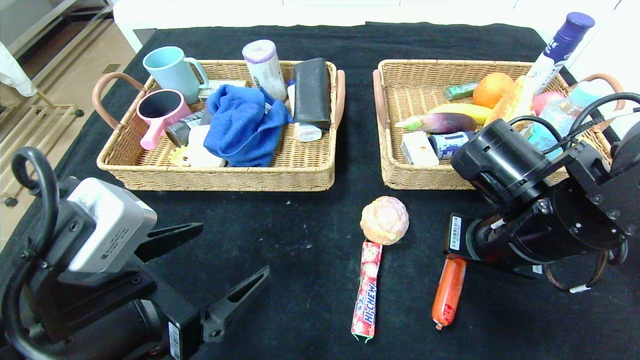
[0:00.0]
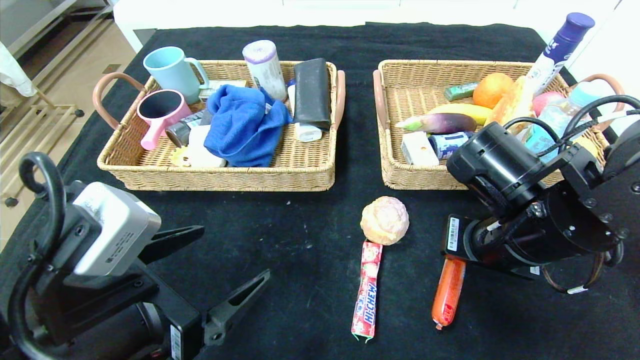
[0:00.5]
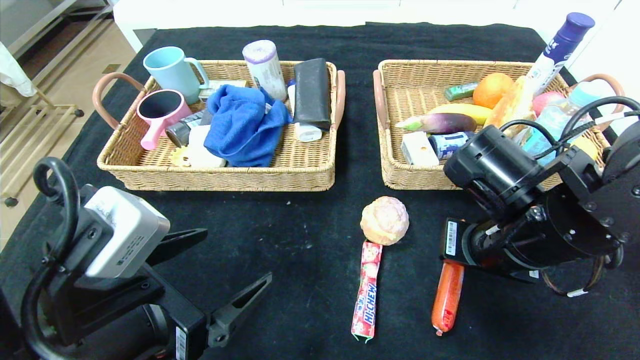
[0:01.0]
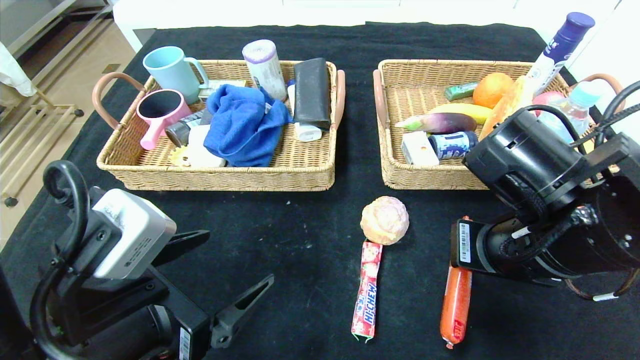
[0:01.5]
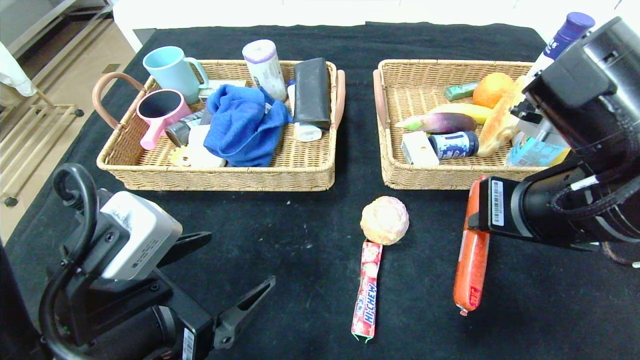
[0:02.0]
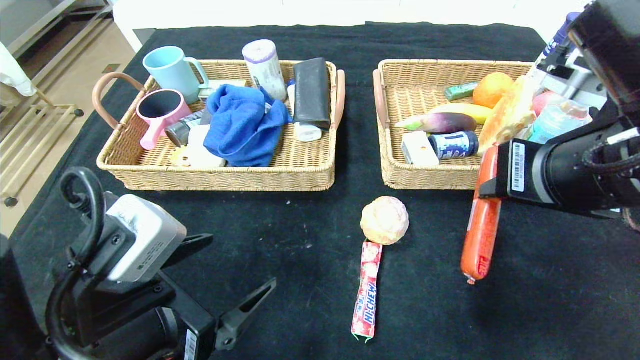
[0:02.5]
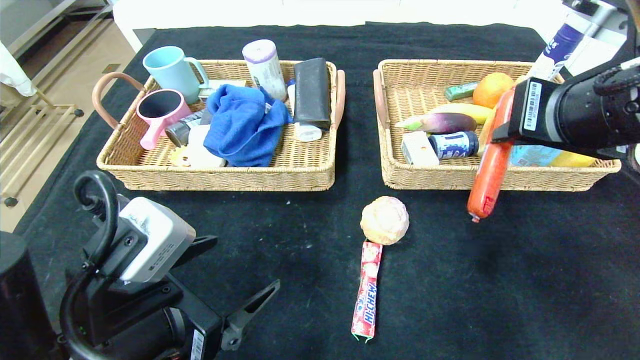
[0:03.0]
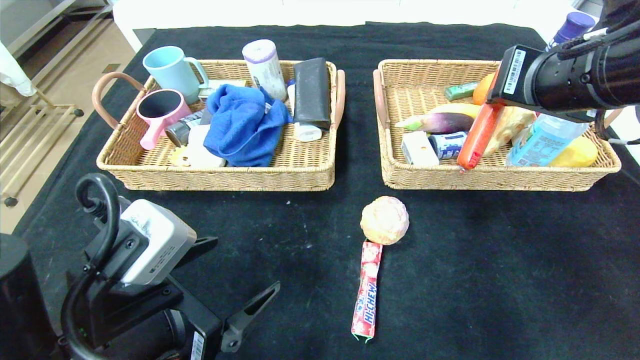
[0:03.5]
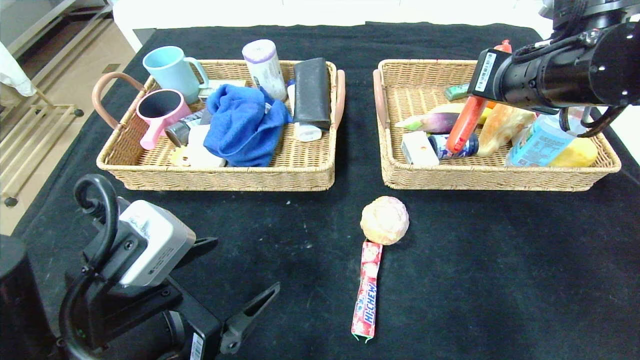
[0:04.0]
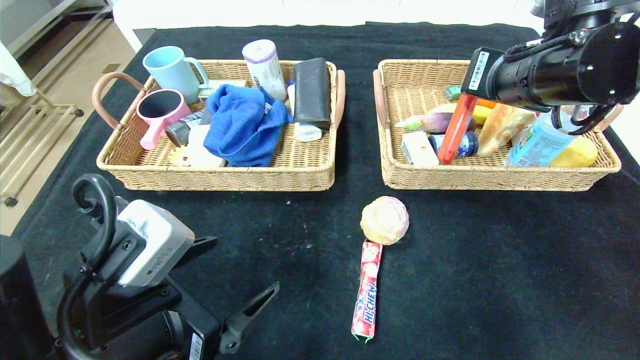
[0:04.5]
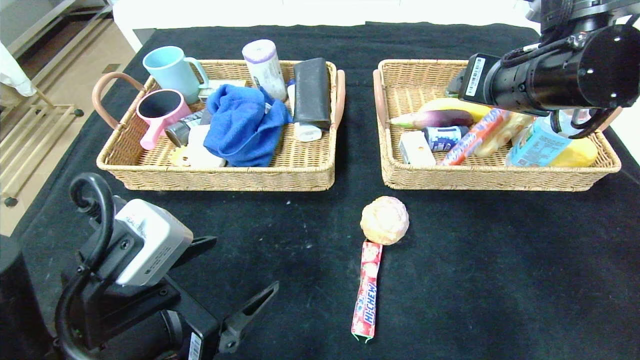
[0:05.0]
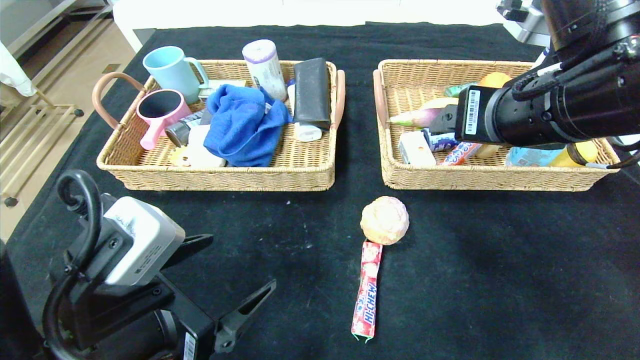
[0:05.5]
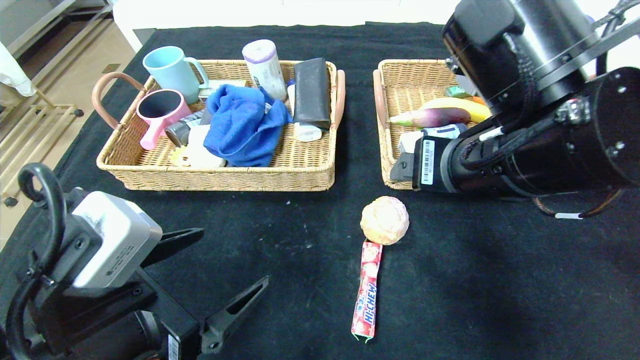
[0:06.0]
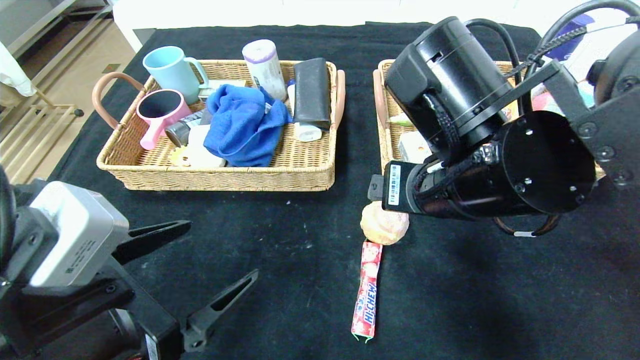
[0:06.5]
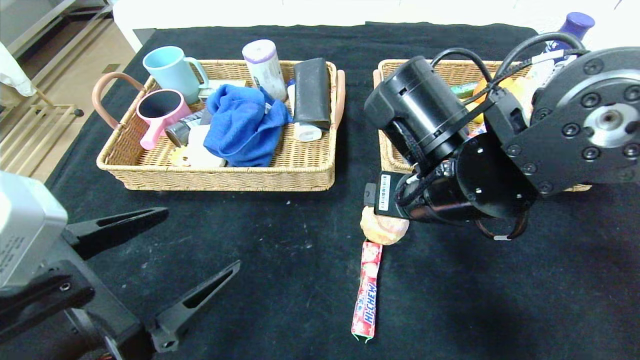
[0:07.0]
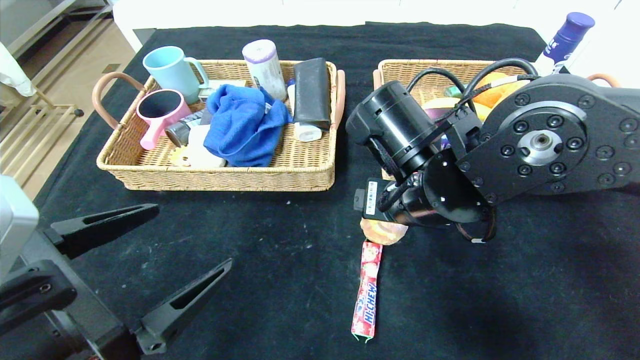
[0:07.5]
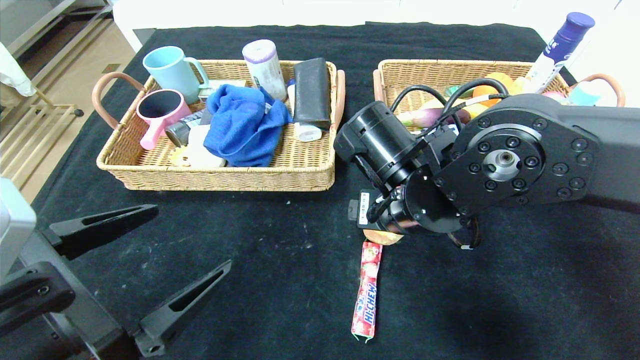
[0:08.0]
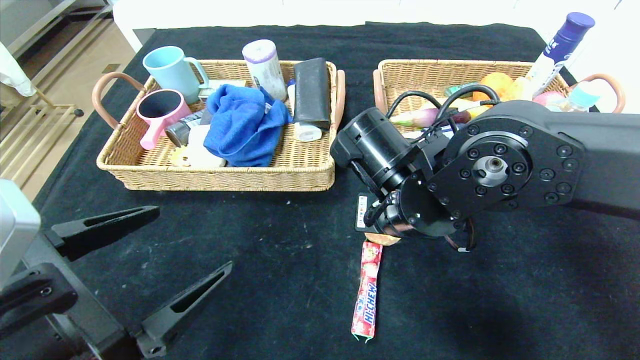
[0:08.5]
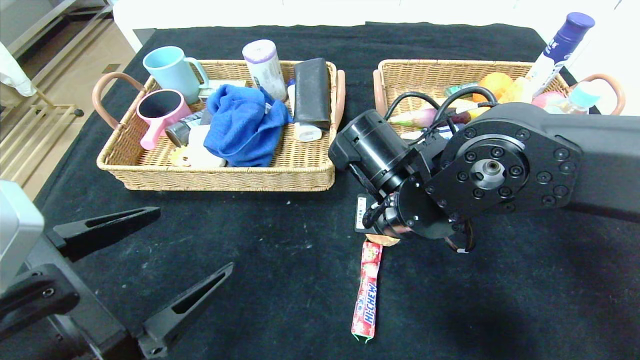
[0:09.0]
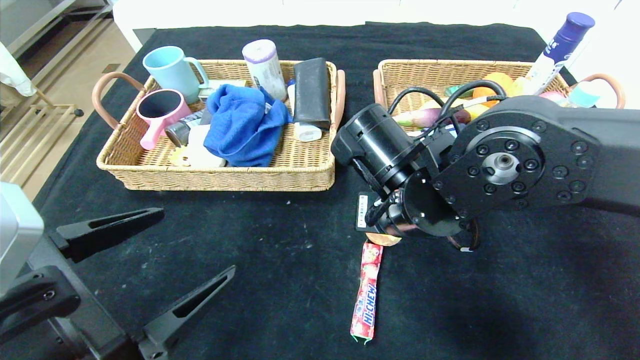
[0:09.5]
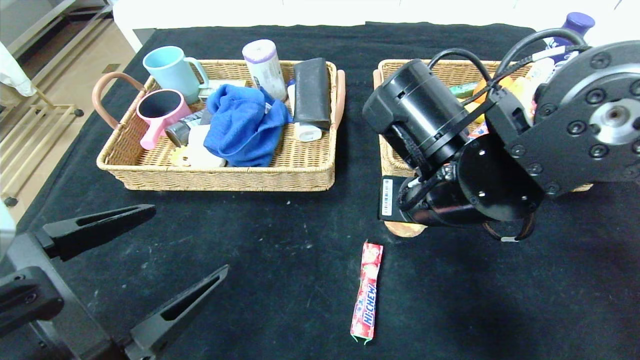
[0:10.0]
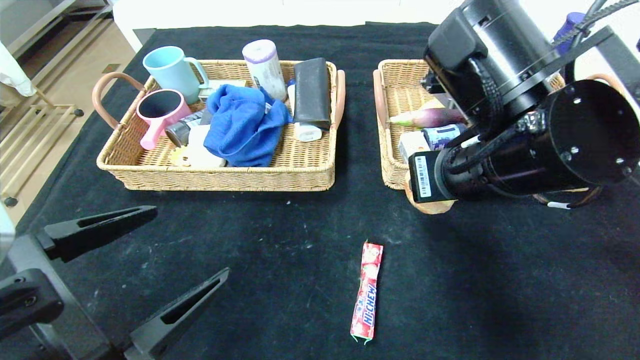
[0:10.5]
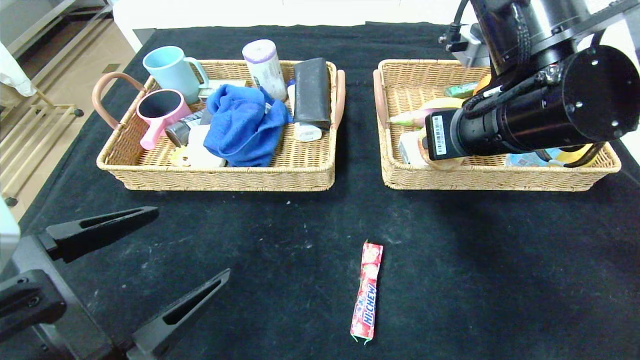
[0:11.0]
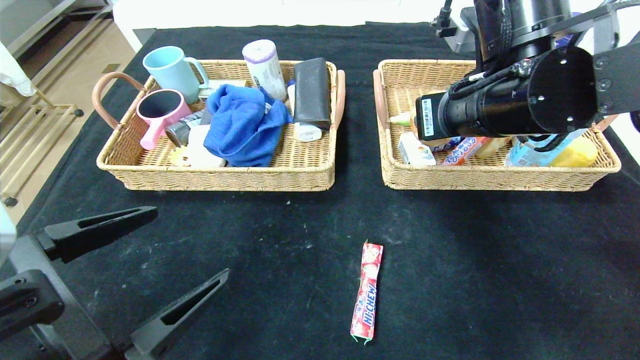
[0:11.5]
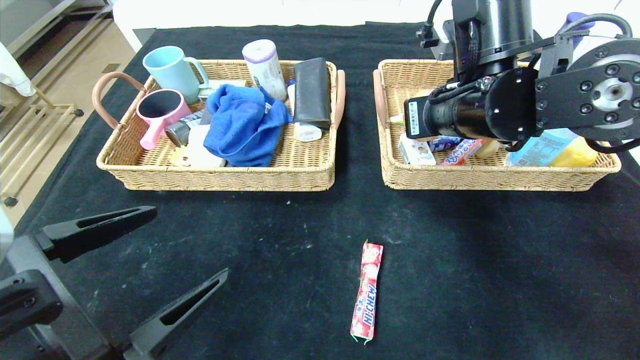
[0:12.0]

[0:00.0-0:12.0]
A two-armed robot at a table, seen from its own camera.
Step, 0:00.0 to 0:05.5: Pick up the sausage and put it in the right basket.
0:00.0 to 0:02.0: The right gripper is displaced upward by roughly 5 cm.
0:02.0 to 0:04.0: The right gripper travels forward and upward by some 10 cm.
0:04.0 to 0:06.0: The right gripper moves backward and to the left, approximately 10 cm, and opens up.
0:06.0 to 0:08.0: The right gripper travels downward and forward by roughly 10 cm.
0:08.0 to 0:10.0: The right gripper changes place by approximately 5 cm, and closes its fingers.
0:10.0 to 0:12.0: The right gripper travels forward by some 10 cm.

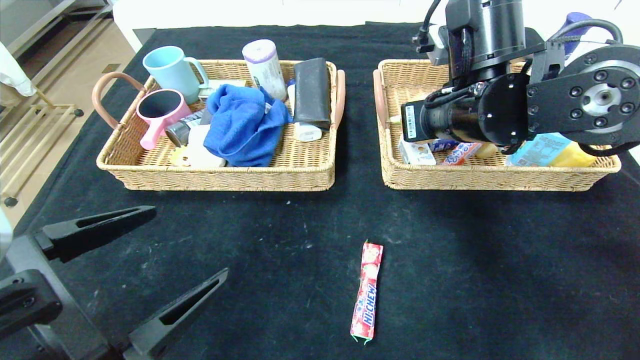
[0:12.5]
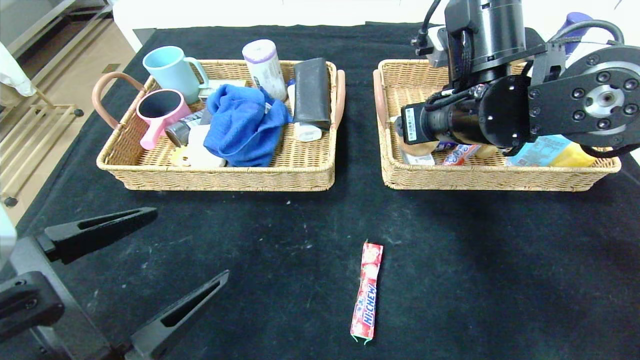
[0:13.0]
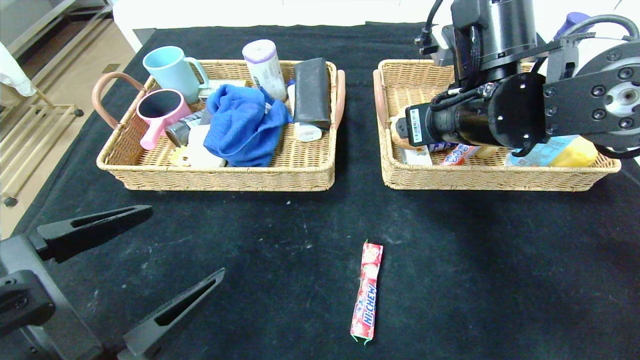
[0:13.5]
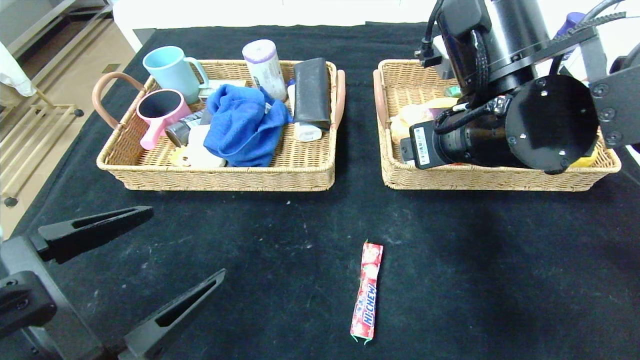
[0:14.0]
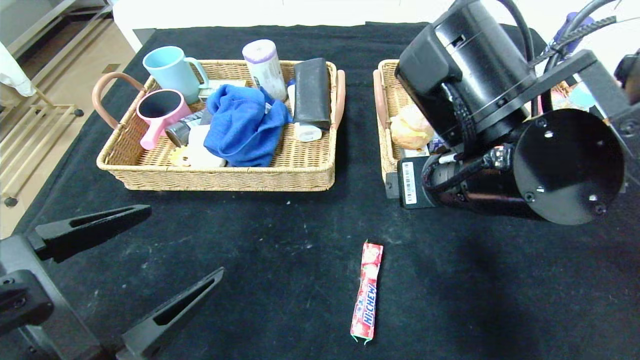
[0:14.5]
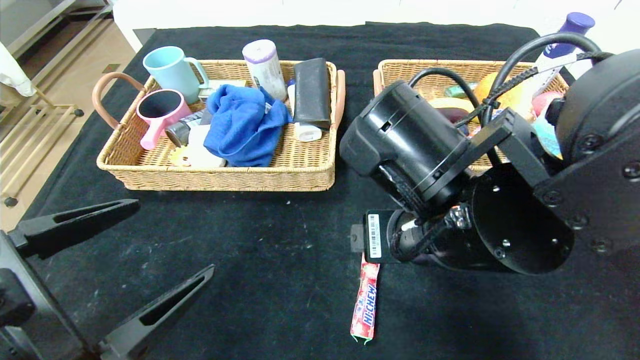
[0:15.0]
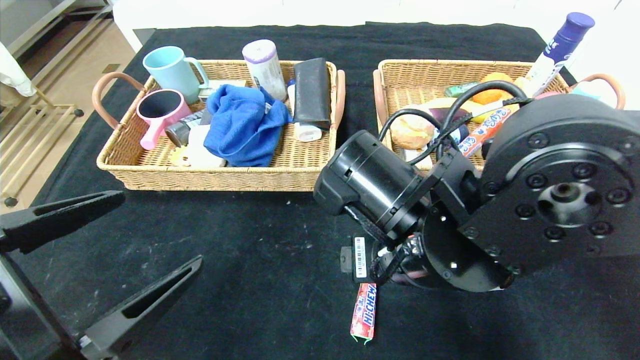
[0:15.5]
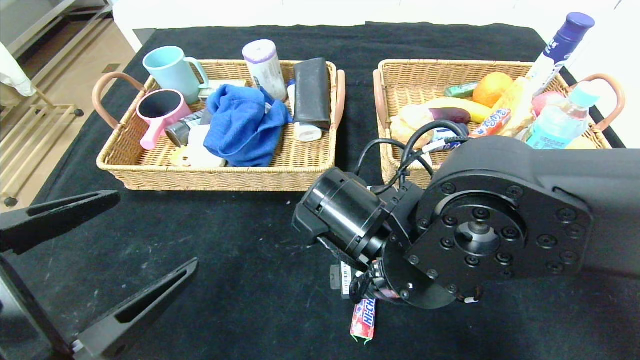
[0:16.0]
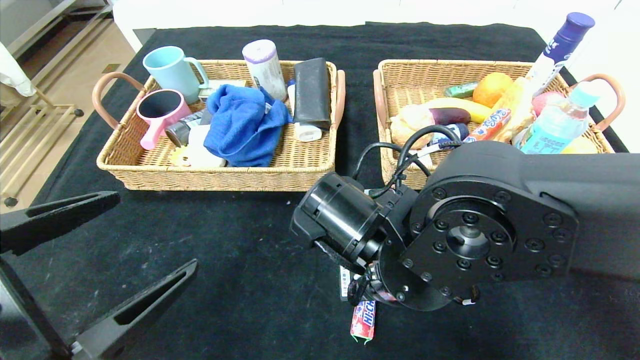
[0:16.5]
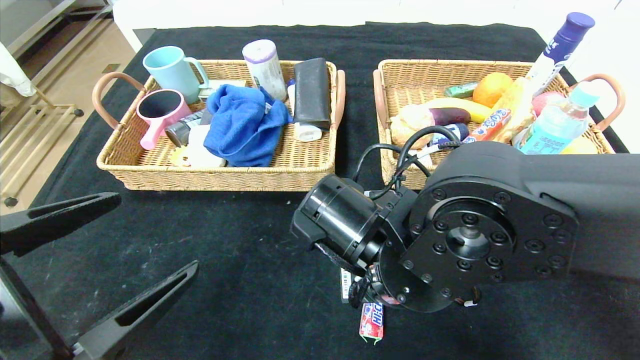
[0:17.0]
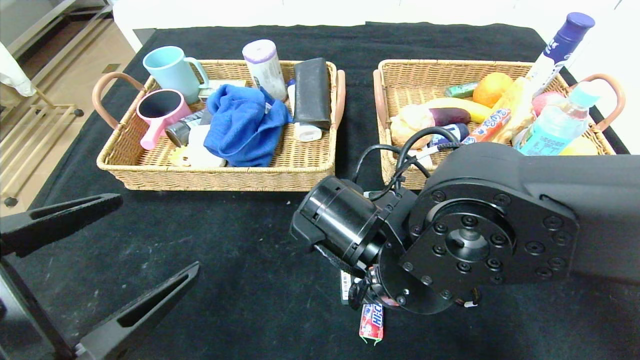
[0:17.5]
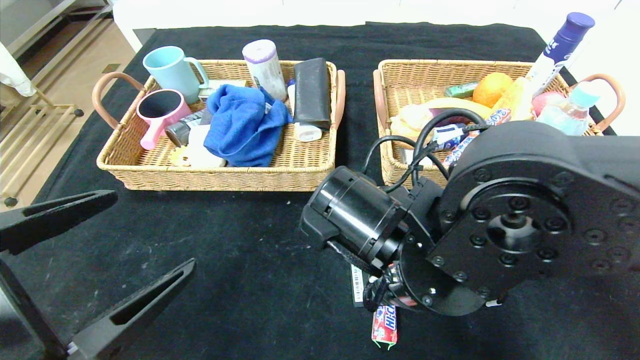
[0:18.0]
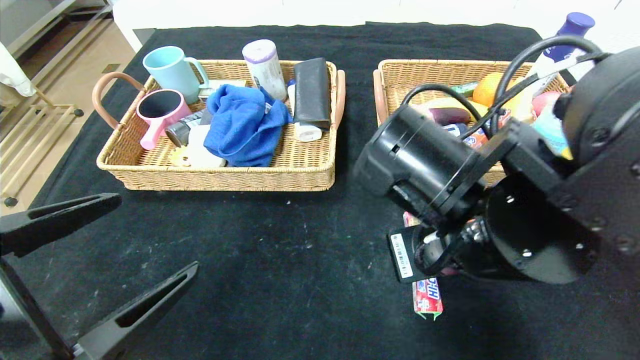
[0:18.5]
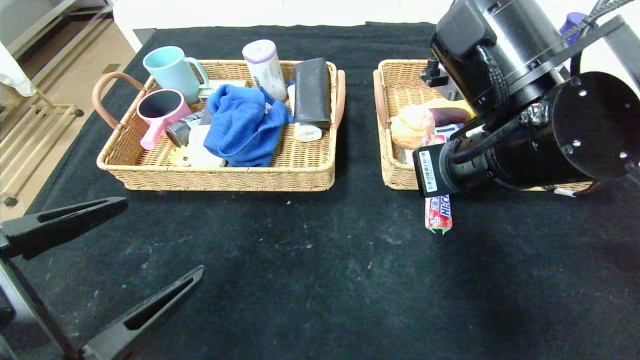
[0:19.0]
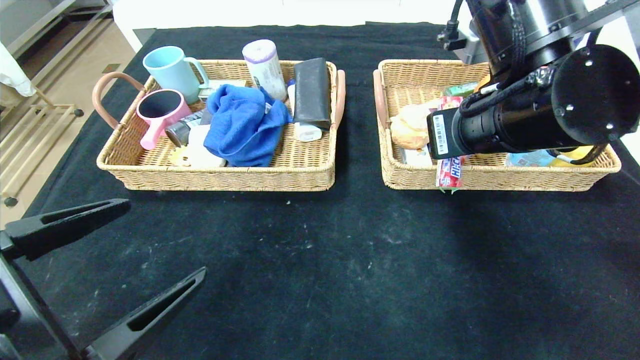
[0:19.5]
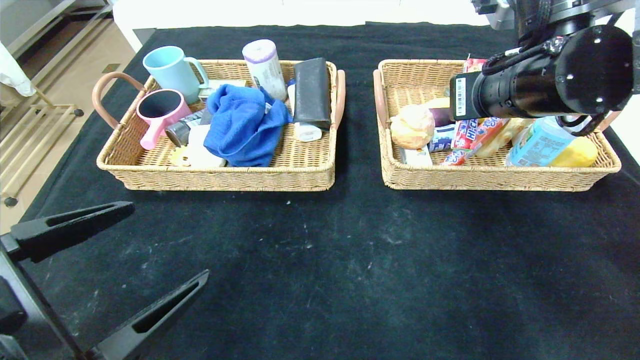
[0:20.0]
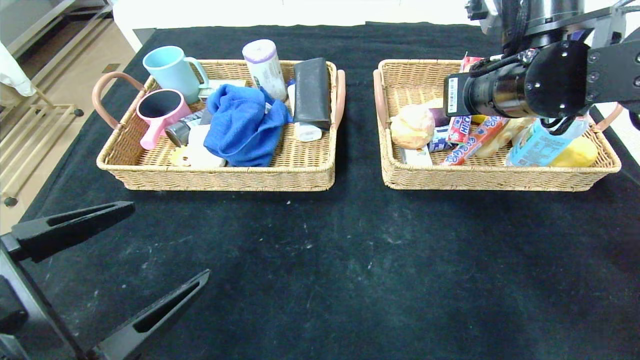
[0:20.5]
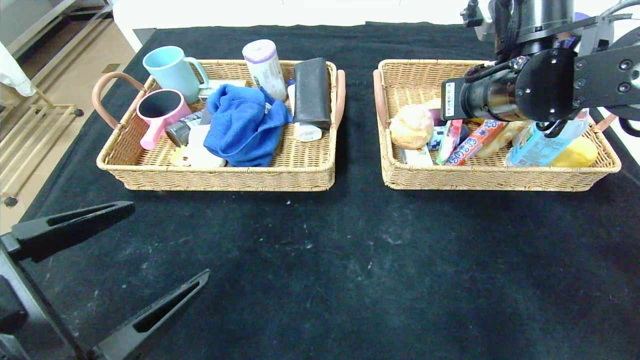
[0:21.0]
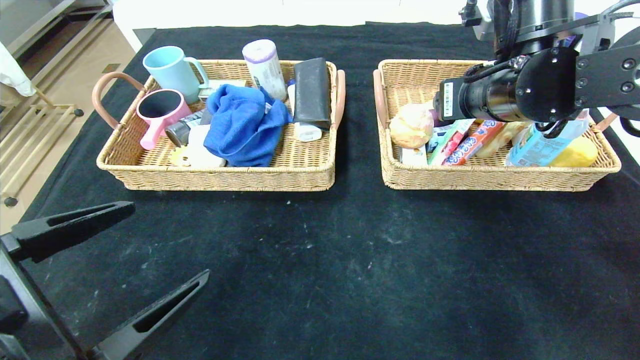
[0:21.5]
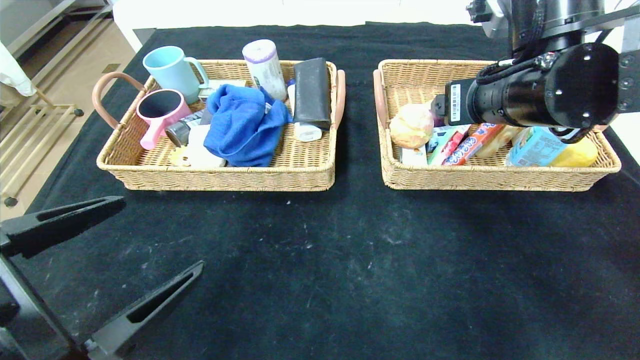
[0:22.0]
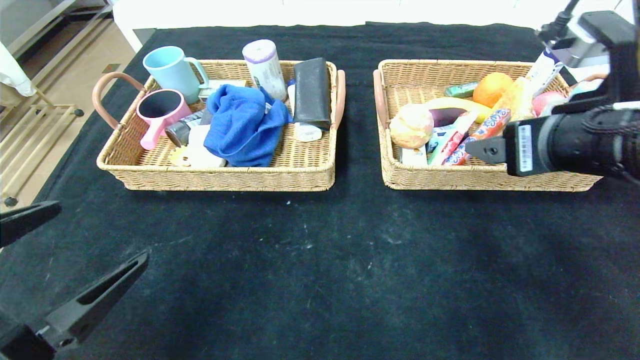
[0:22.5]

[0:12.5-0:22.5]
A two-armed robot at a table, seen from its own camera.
Step, 0:12.5 to 0:14.5: Pick up the round bread and put it in the right basket.
0:12.5 to 0:14.5: The right gripper shifts about 10 cm backward, and opens.
0:14.5 to 0:16.5: The right gripper is displaced downward and to the left by approximately 10 cm, and closes its fingers.
0:16.5 to 0:18.5: The right gripper goes some 10 cm upward and to the right, and closes up.
0:18.5 to 0:20.5: The right gripper shifts approximately 15 cm forward, upward and to the right.
0:20.5 to 0:22.5: The right gripper is displaced backward by some 10 cm, and opens up.
